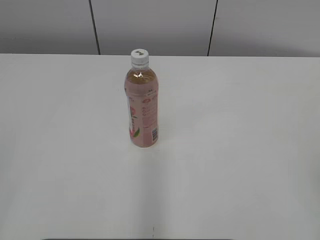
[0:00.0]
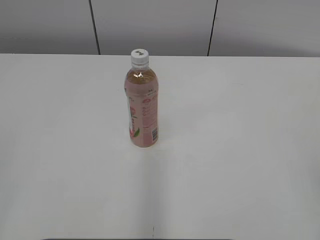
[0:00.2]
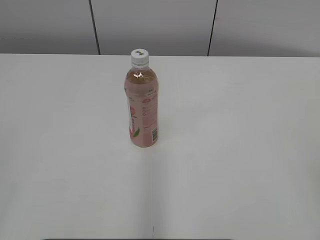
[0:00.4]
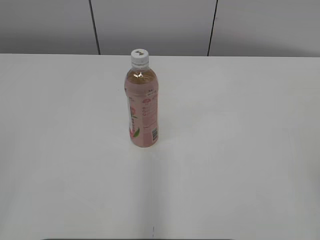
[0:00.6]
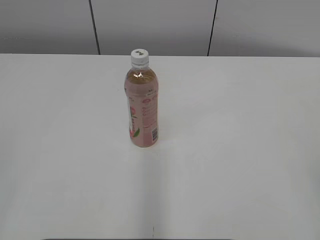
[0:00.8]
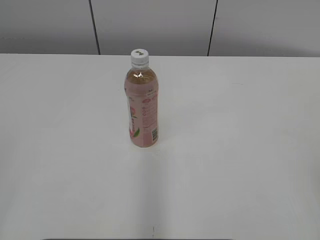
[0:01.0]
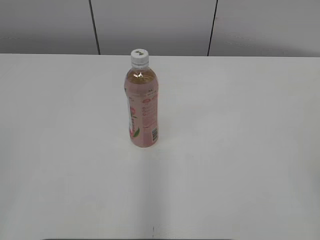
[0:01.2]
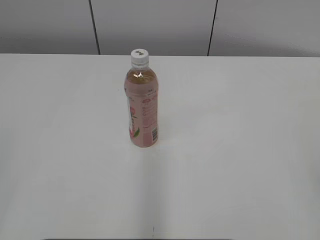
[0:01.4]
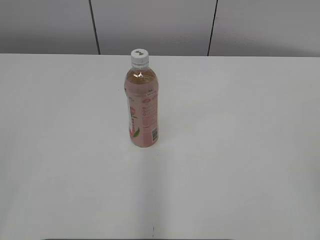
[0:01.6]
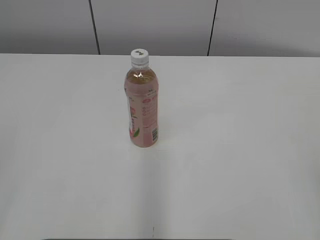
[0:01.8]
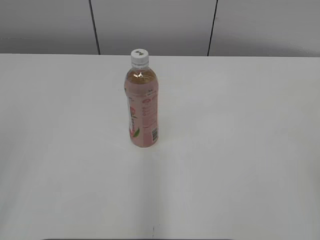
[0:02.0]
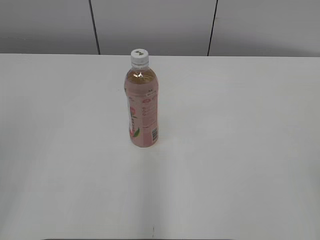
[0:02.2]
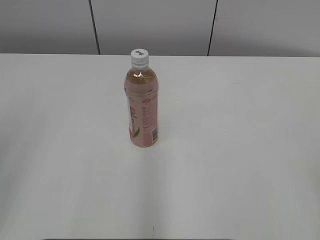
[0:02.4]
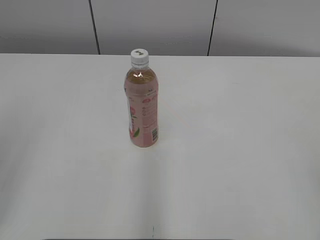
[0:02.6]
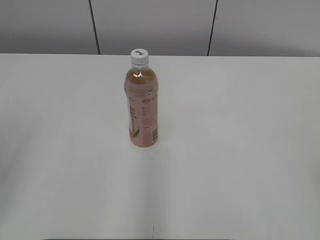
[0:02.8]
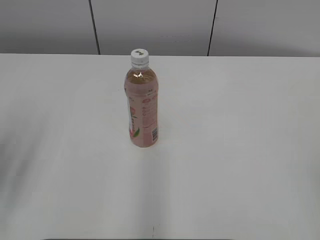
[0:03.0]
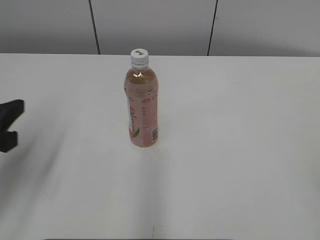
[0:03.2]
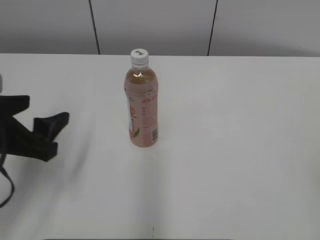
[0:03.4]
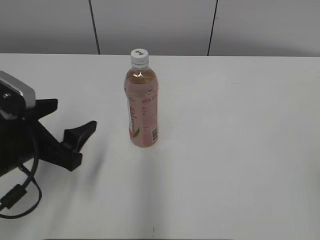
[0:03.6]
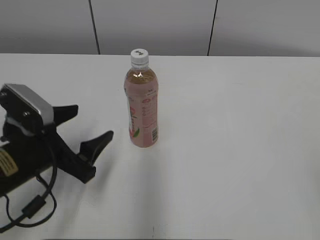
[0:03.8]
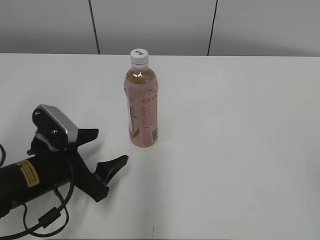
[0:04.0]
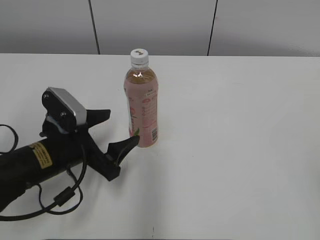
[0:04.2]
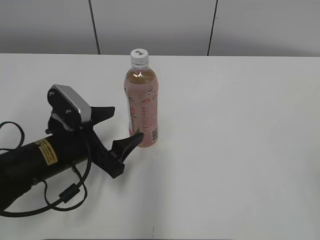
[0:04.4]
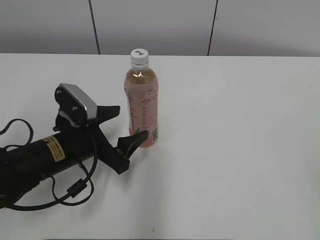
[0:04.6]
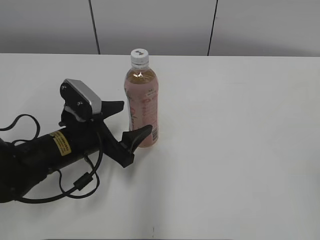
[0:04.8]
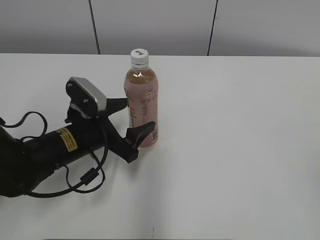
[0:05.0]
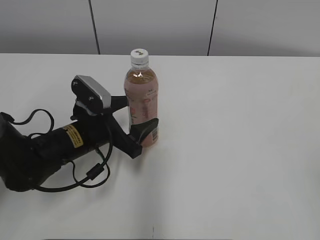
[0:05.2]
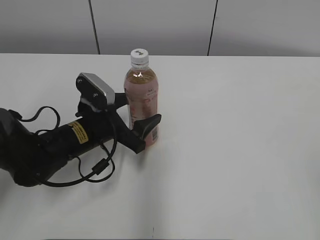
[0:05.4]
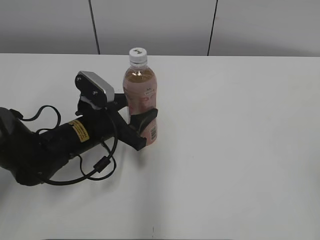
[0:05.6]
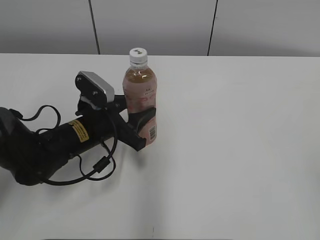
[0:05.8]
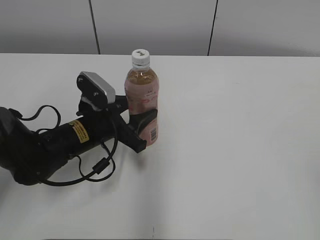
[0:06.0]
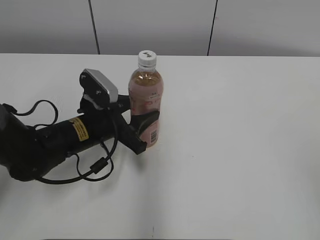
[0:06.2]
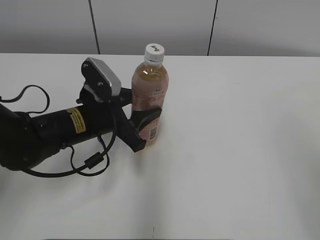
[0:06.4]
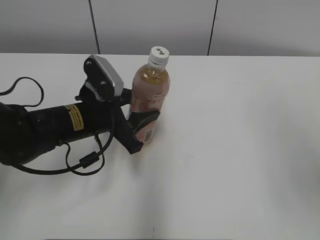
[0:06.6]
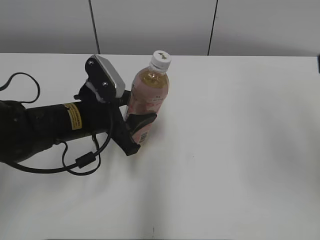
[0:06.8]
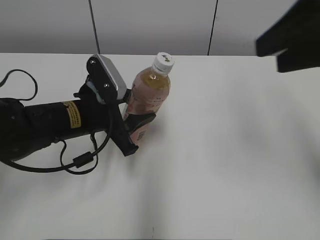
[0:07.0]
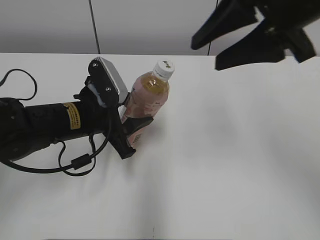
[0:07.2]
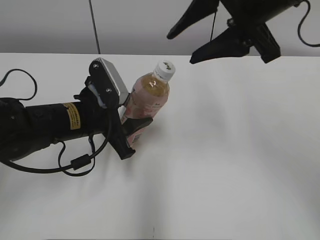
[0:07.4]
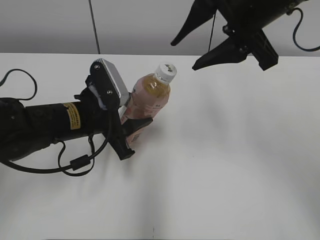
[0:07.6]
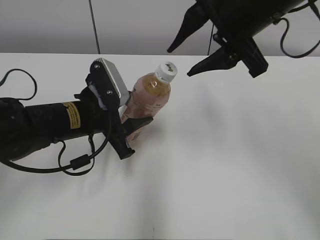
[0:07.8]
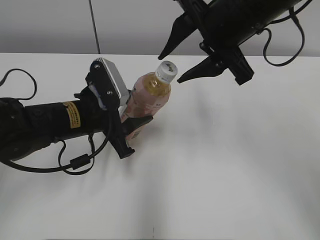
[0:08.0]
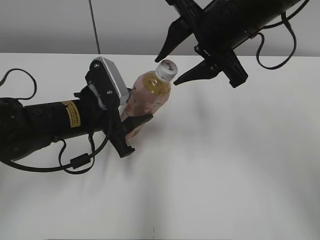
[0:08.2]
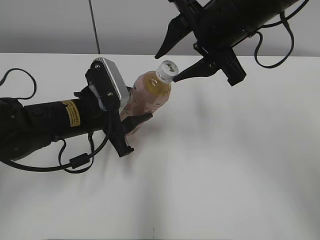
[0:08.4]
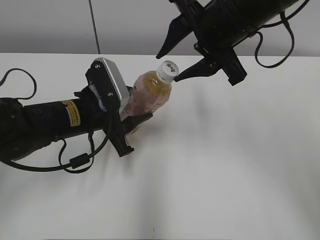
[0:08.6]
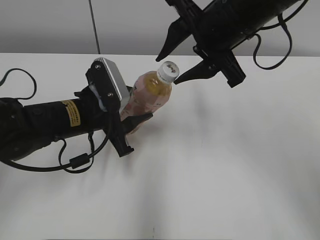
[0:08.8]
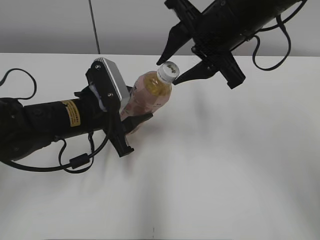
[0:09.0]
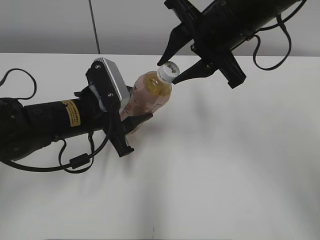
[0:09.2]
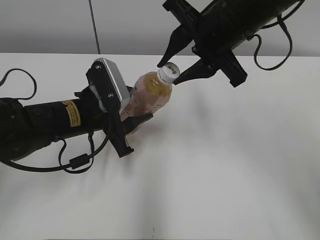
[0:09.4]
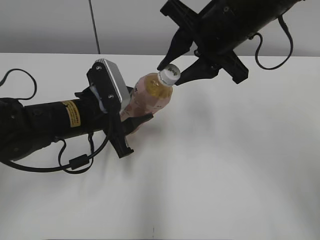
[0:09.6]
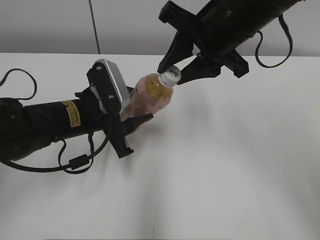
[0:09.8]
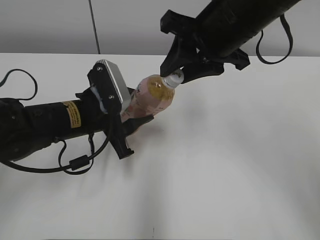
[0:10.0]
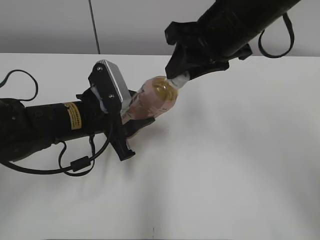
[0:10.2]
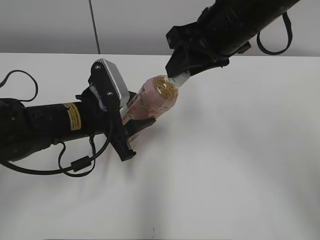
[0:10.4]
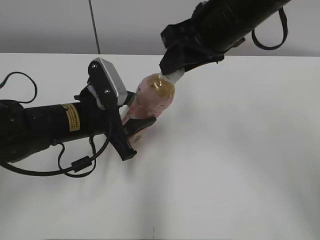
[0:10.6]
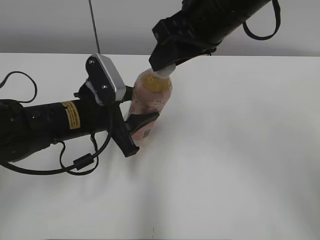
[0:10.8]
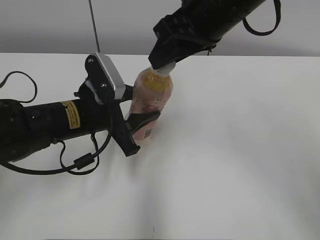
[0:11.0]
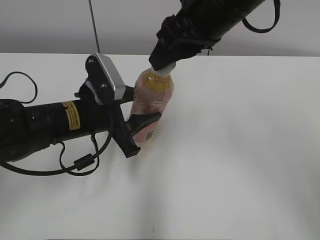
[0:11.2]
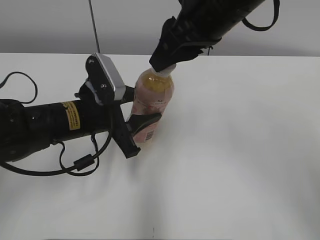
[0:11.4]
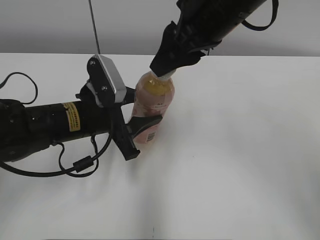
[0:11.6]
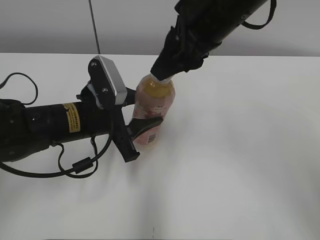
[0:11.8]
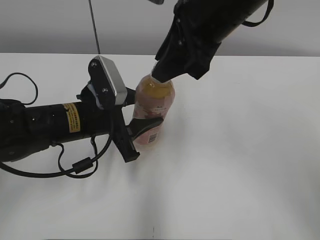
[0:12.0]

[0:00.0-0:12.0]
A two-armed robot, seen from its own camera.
Step, 0:00.0 to 0:06.0: Grab the Peach Oolong Tea with the left hand.
0:01.6 to 0:03.0: The left gripper goes about 15 cm forward, and opens.
0:03.0 to 0:04.4: The left gripper shifts some 25 cm downward, to the right and forward, and opens up.
0:04.4 to 0:06.0: The left gripper is displaced forward by some 5 cm, and closes.
0:06.0 to 0:07.6: The right gripper heads forward and to the left, covering approximately 35 cm.
0:07.6 to 0:09.0: The right gripper ends up approximately 5 cm from where it was.

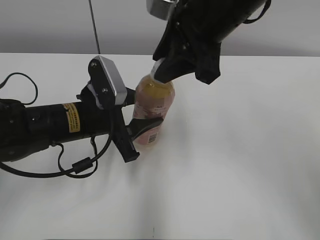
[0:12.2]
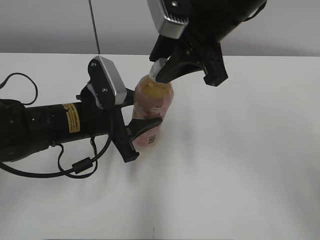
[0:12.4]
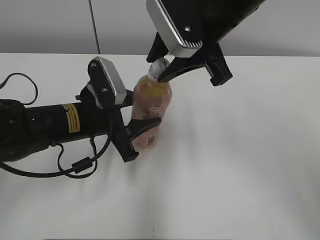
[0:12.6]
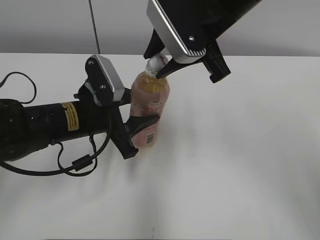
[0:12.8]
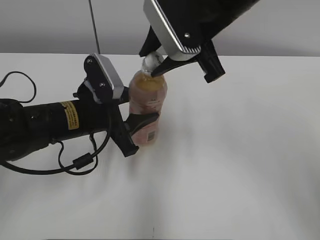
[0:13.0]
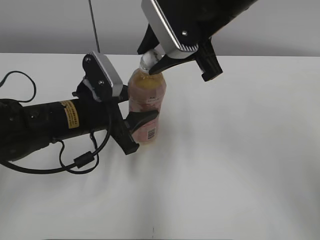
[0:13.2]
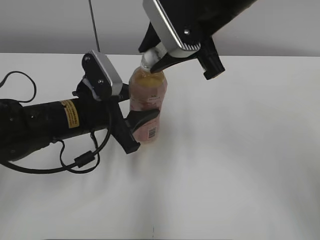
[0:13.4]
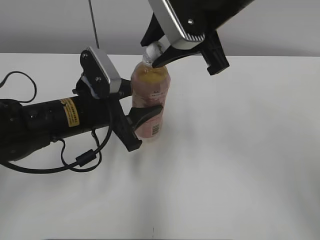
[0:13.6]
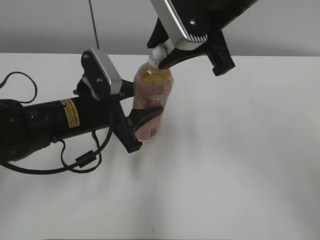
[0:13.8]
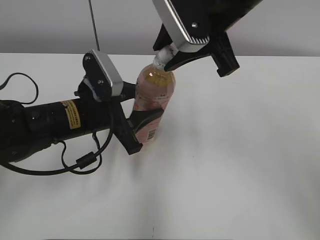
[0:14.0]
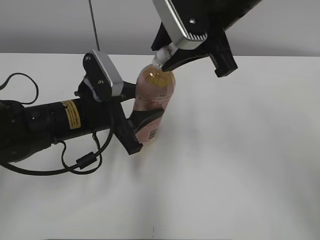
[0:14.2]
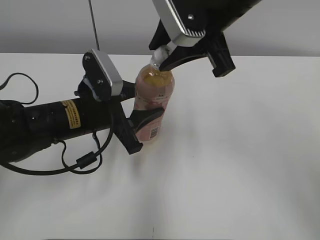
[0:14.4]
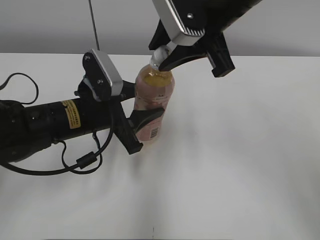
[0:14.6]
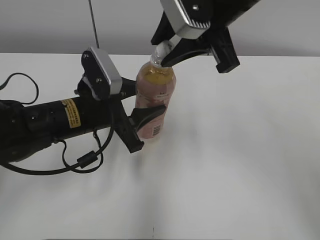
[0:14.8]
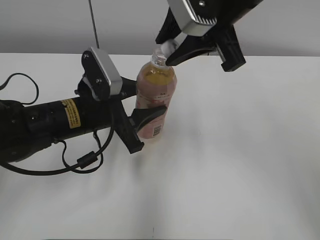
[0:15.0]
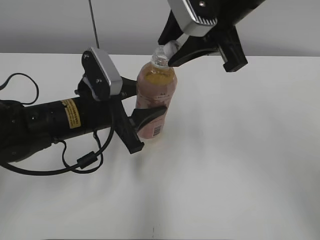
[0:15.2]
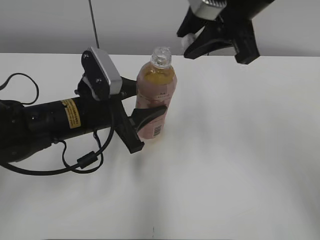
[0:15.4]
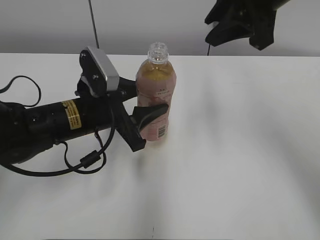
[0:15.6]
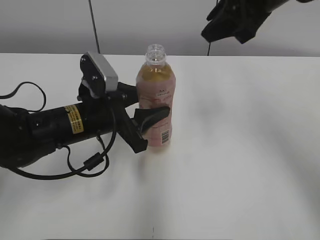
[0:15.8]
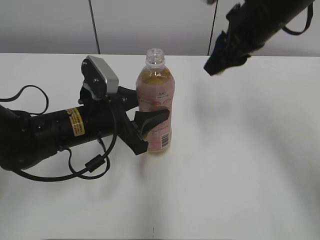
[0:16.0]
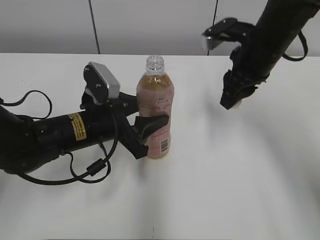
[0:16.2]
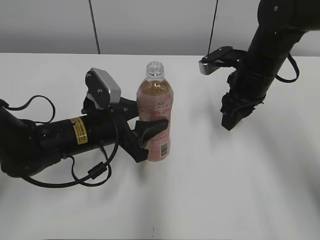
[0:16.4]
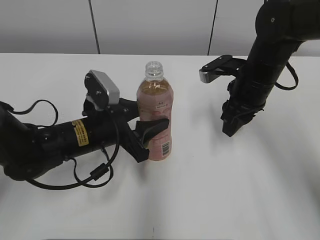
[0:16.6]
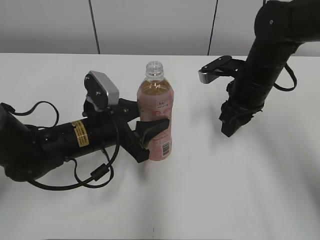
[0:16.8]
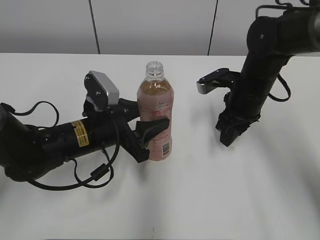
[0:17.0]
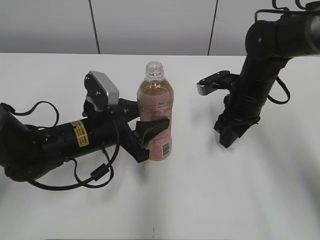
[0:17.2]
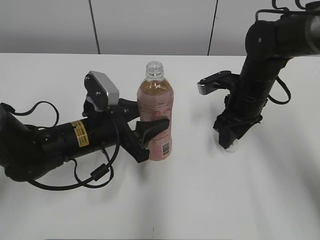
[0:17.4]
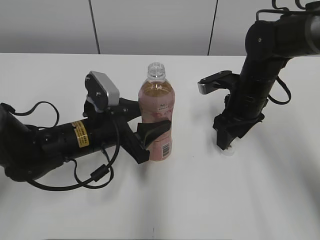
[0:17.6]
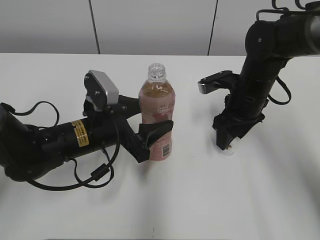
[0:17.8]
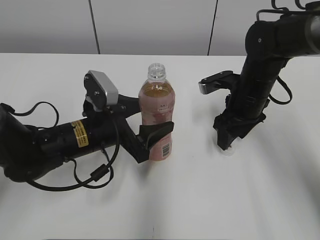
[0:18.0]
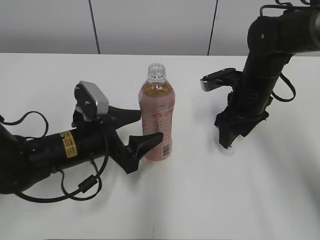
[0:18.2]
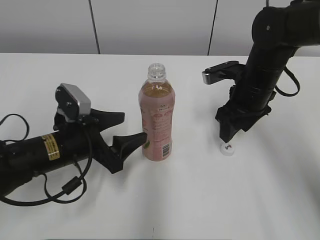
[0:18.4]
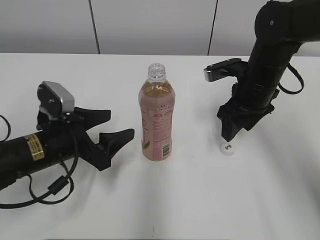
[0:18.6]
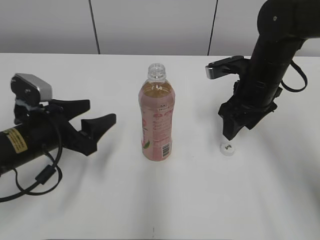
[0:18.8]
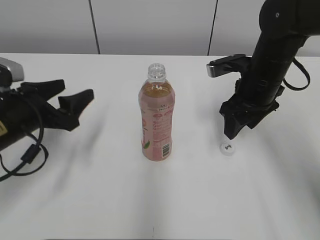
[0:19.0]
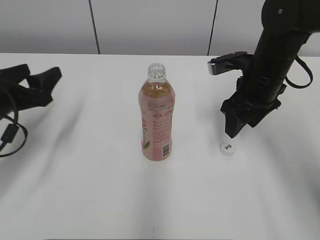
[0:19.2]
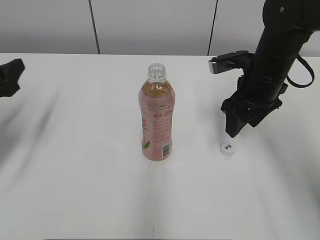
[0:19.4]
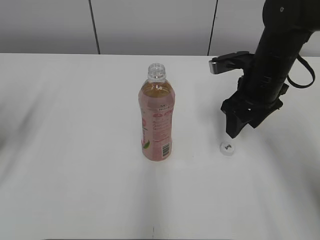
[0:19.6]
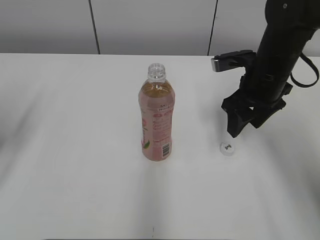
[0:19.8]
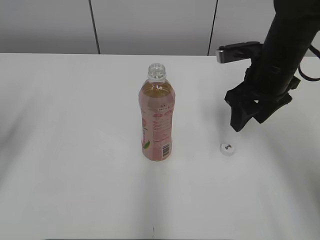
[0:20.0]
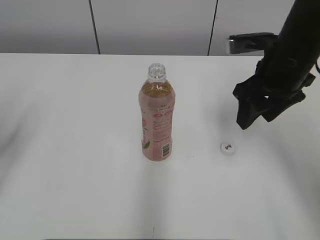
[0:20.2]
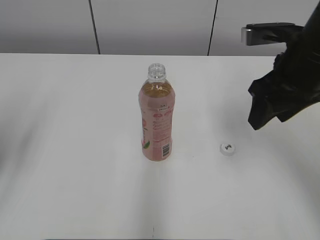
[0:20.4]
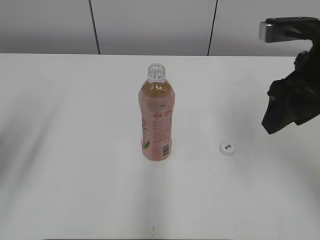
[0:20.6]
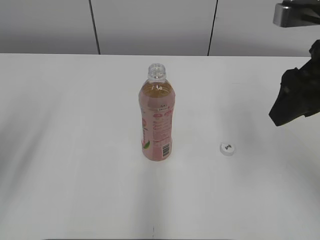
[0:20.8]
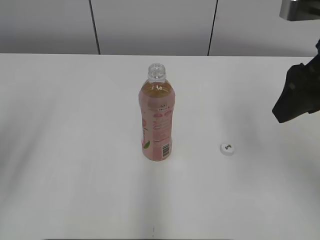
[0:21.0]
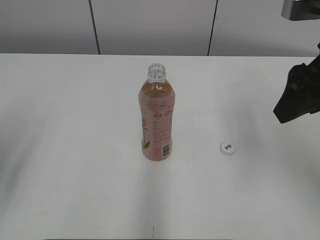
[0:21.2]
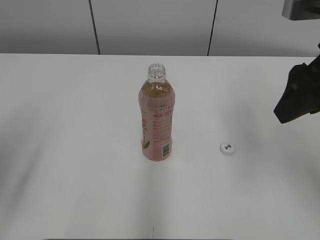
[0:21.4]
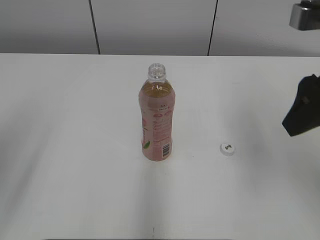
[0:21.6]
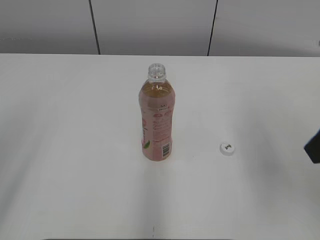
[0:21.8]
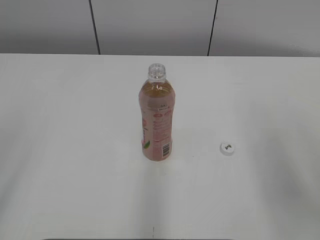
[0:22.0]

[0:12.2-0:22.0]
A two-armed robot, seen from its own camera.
Step, 0:12.2 to 0:14.8: Secure the Peach Oolong Tea with the left hand.
Step, 0:15.0 to 0:17.4: Place the bottle cap on the right.
Step, 0:17.6 to 0:17.8: Place the Peach Oolong Tea with the left hand.
0:13.6 to 0:15.0: The grippers move only a little.
0:15.0 to 0:16.4: The right gripper goes approximately 20 cm downward, to the right and forward.
0:16.4 to 0:17.8: The right gripper heads downward, covering roughly 5 cm, and opens its fingers.
0:17.8 to 0:19.2: The right gripper changes place by roughly 5 cm, while the left gripper travels to the left by roughly 15 cm.
0:19.2 to 0:20.6: The grippers both shift upward and backward by about 15 cm.
0:20.6 to 0:22.0: The right gripper is displaced backward by about 10 cm.
